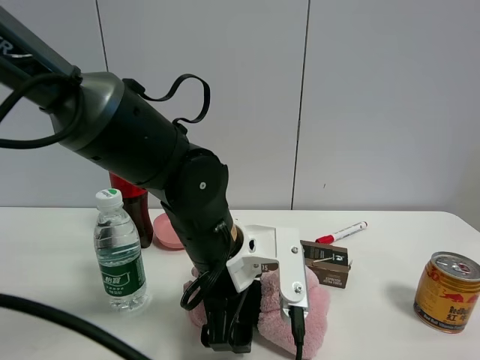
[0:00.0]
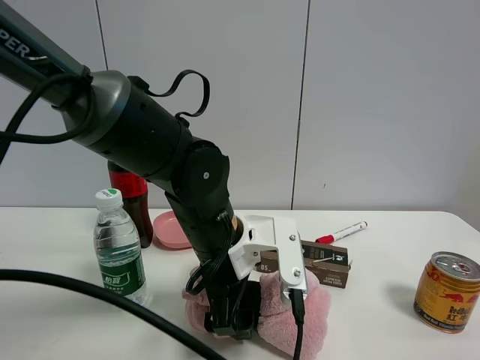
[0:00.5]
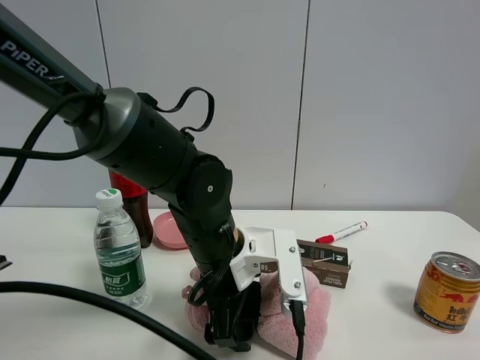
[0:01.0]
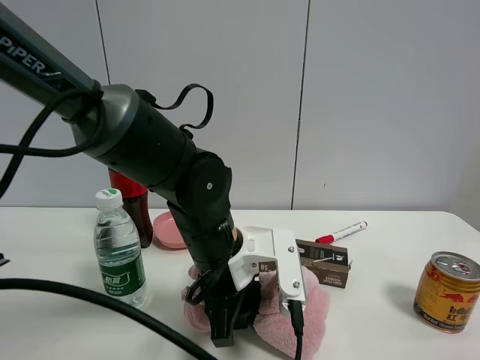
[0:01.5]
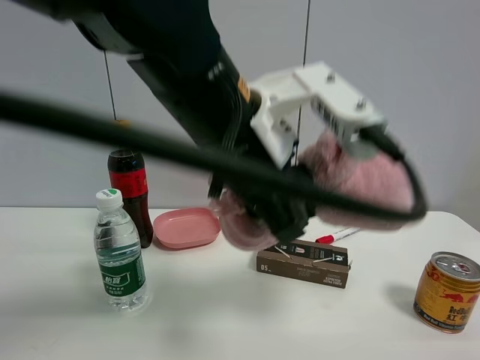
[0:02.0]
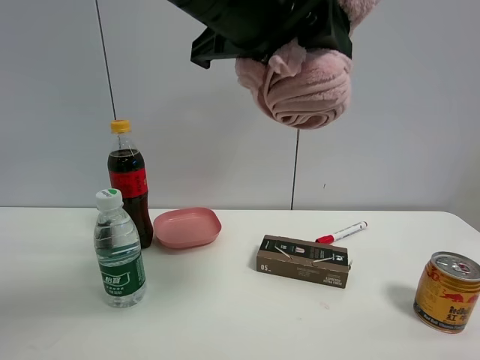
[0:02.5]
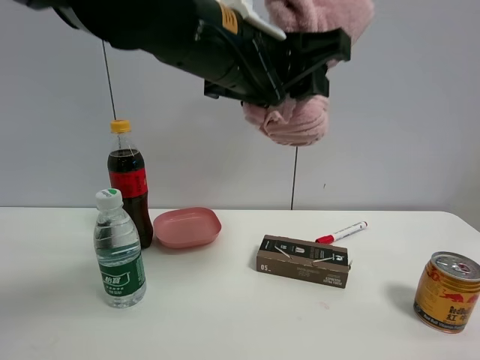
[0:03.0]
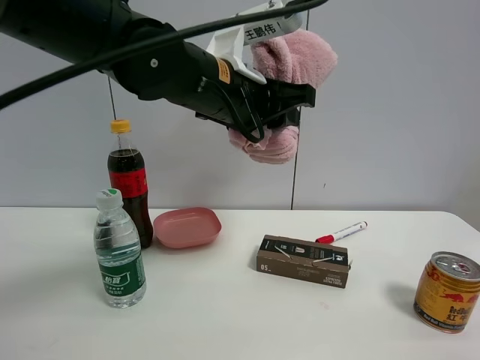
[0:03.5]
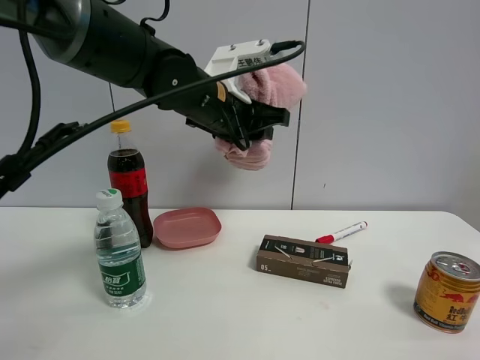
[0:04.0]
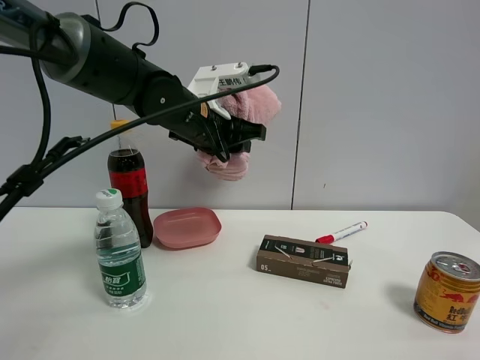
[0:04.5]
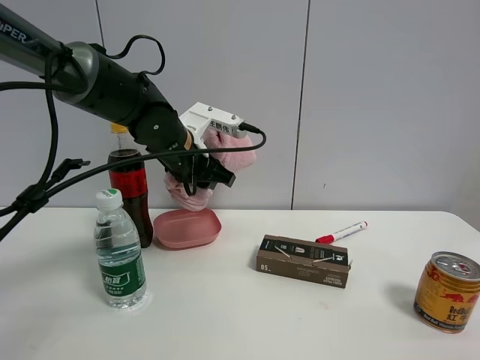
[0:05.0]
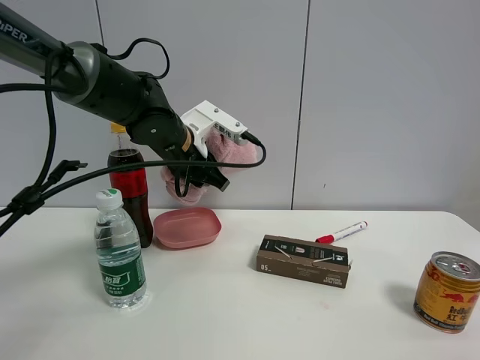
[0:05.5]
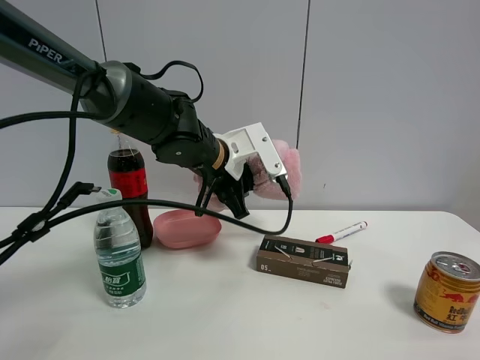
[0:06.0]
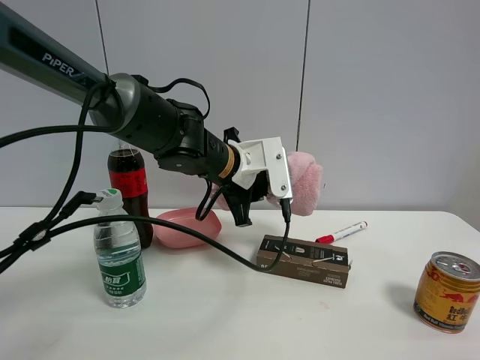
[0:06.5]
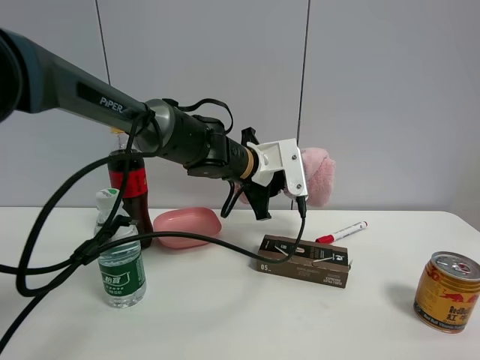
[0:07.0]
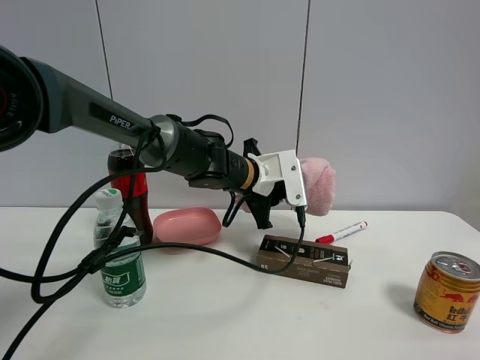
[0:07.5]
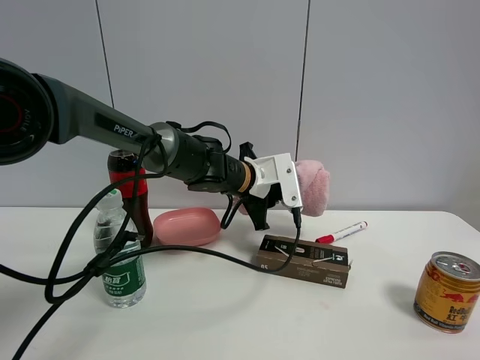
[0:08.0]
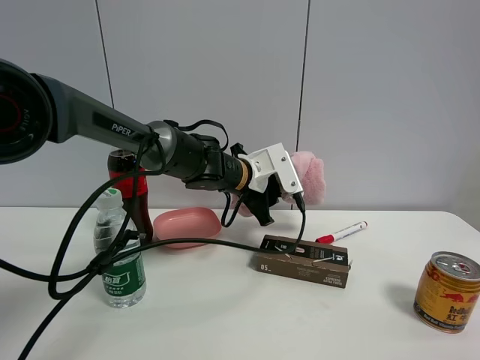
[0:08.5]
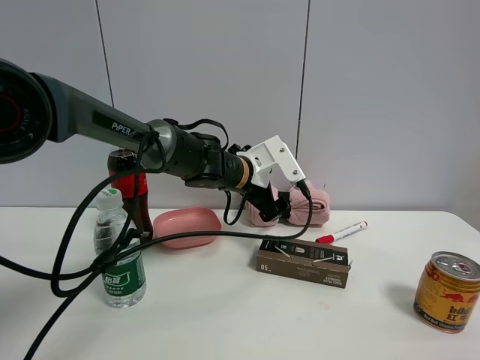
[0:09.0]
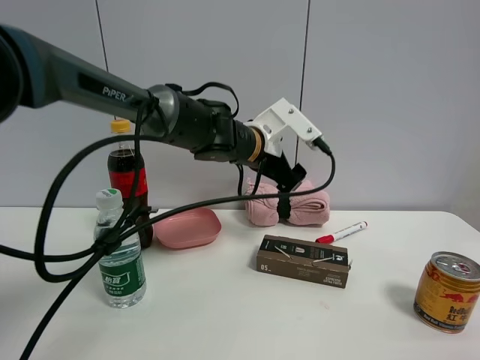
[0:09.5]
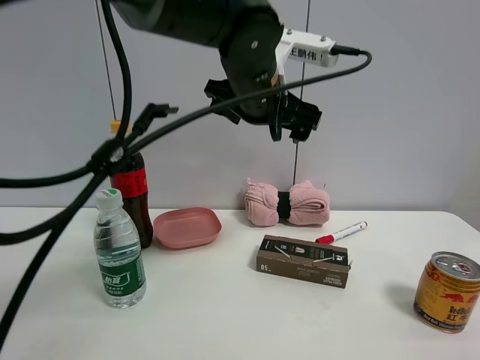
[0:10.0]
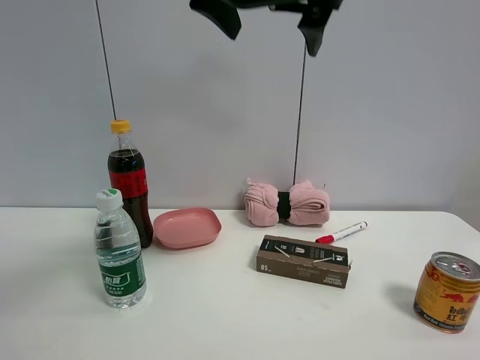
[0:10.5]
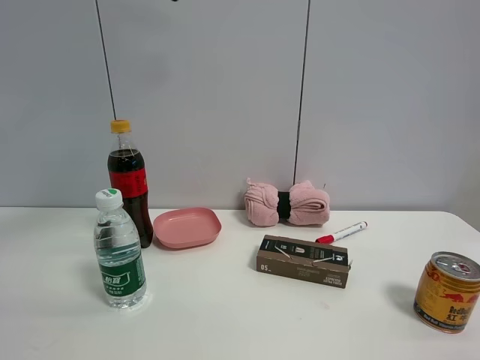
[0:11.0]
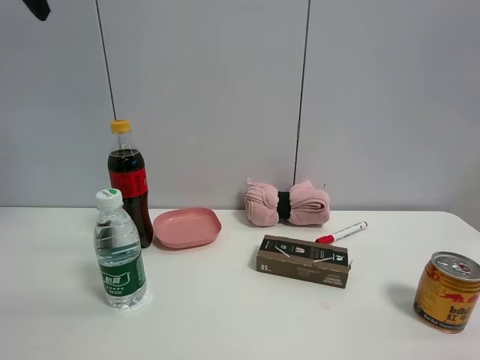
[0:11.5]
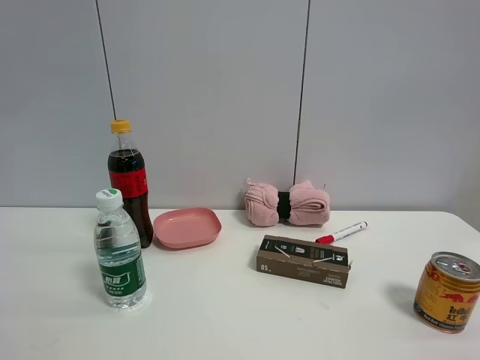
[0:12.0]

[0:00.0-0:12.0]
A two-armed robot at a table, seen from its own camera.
Task of the whole recording: the gripper move the object.
Step, 0:02.0 to 0:08.5: Place the pink towel on the table with the left gripper.
0:00.0 to 0:02.0: The left gripper moves upward, approximately 15 cm, and closes.
0:02.0 to 0:04.0: The left gripper shifts roughly 15 cm forward.
0:04.0 to 0:06.0: The left gripper goes approximately 10 cm downward.
0:06.0 to 0:08.0: The left gripper moves some 10 cm.
0:08.0 to 0:10.0: The left gripper moves upward and backward, about 20 cm, and opens up.
0:10.0 to 0:12.0: The left gripper travels to the left and upward by approximately 40 cm.

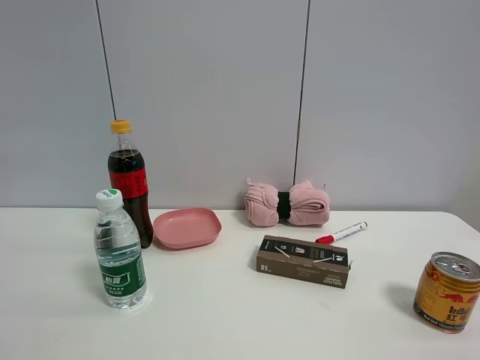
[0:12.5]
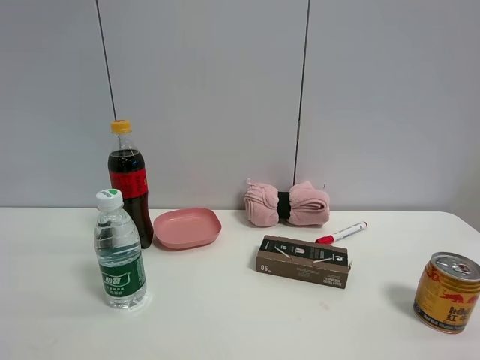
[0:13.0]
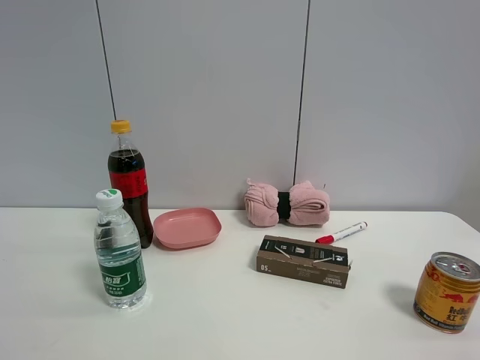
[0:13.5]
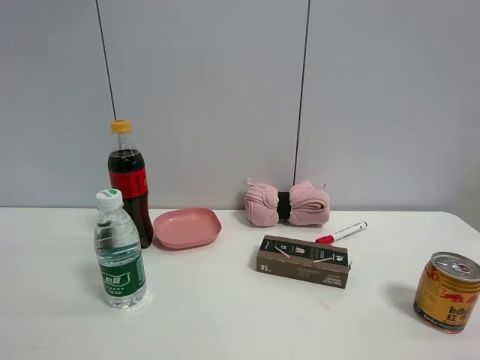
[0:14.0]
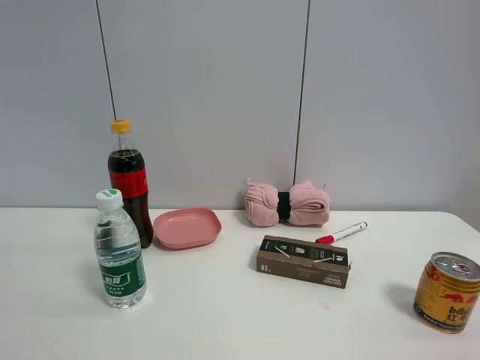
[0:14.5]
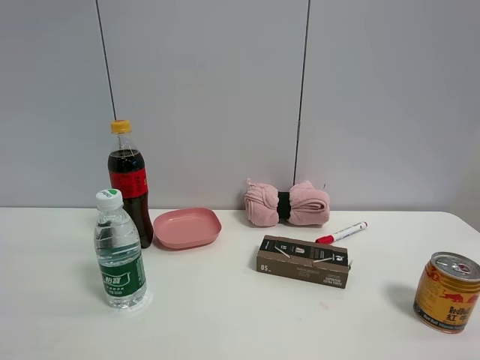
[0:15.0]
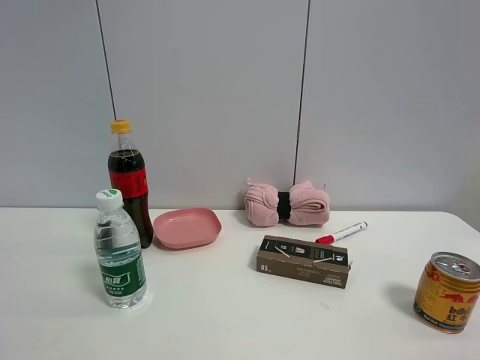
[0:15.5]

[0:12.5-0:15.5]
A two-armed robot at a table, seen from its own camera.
Task of the whole recording: the gripper move the object.
0:14.0 to 0:15.5: Neither gripper changes place.

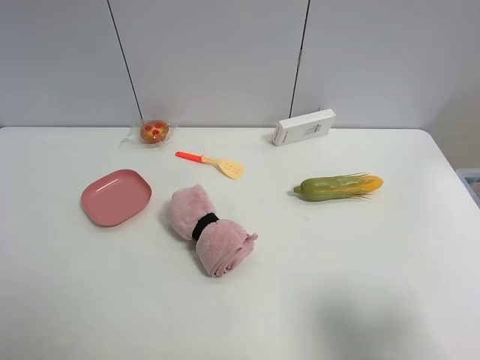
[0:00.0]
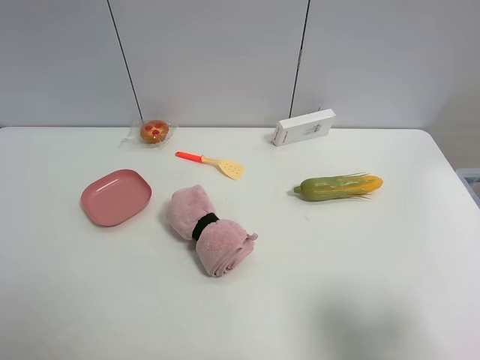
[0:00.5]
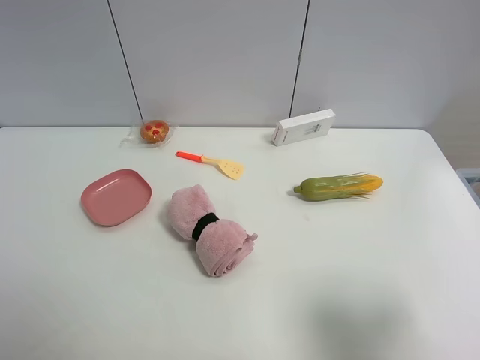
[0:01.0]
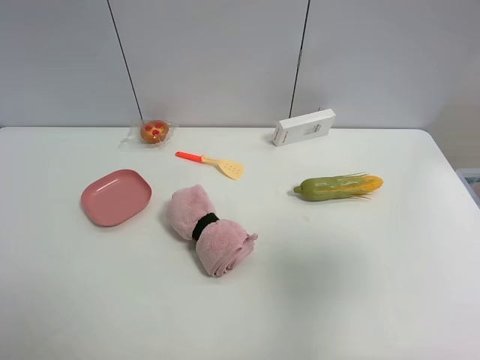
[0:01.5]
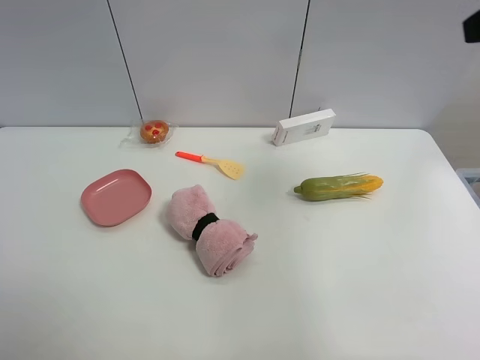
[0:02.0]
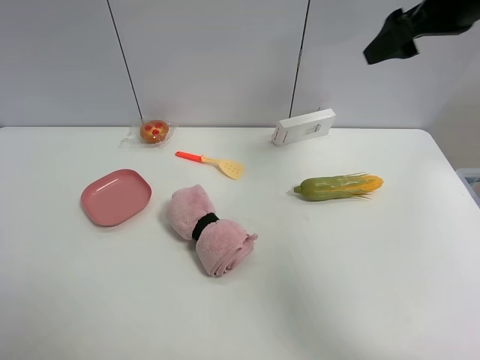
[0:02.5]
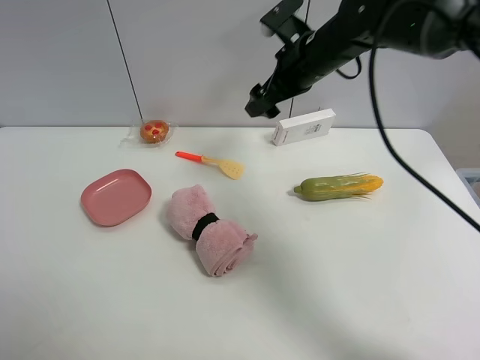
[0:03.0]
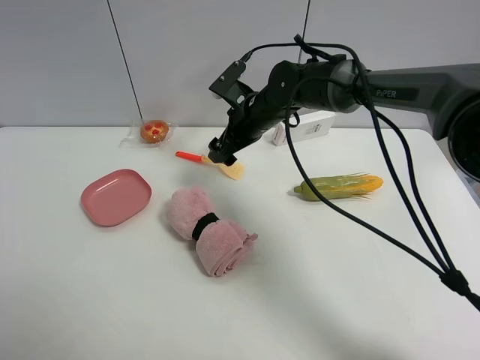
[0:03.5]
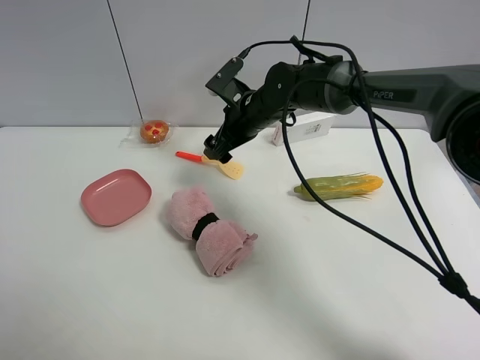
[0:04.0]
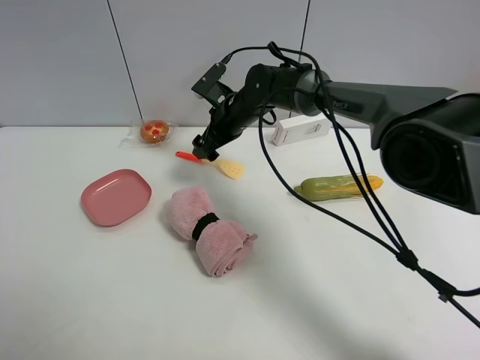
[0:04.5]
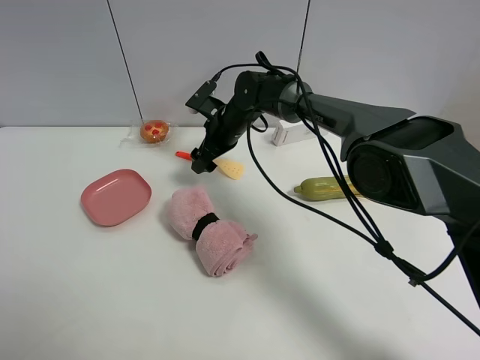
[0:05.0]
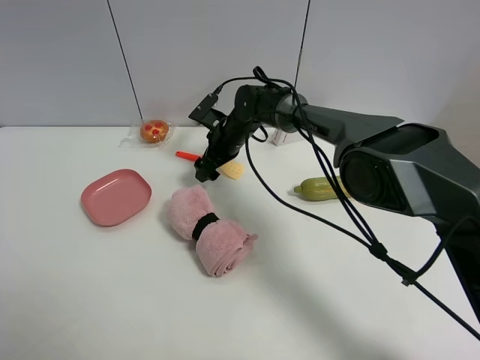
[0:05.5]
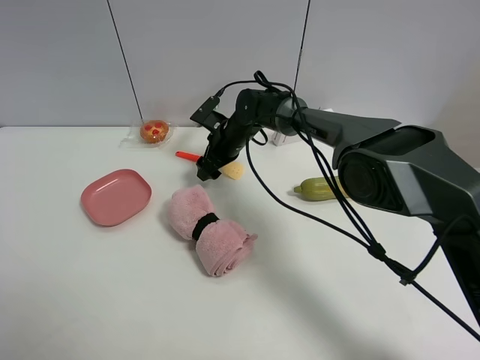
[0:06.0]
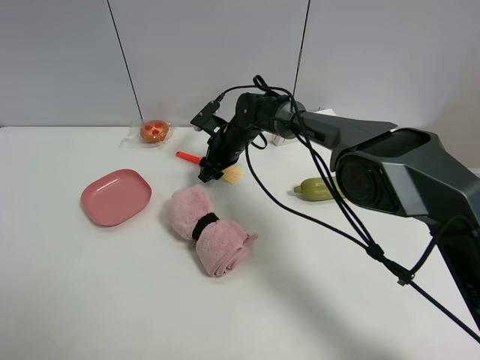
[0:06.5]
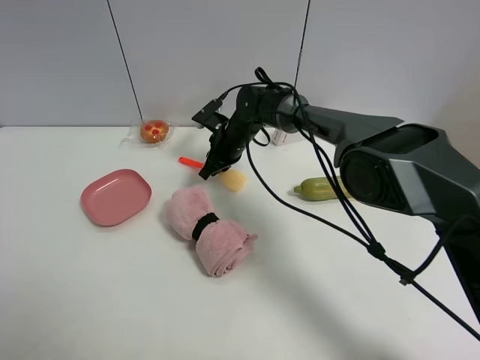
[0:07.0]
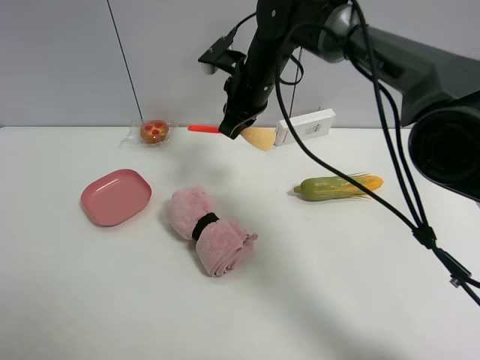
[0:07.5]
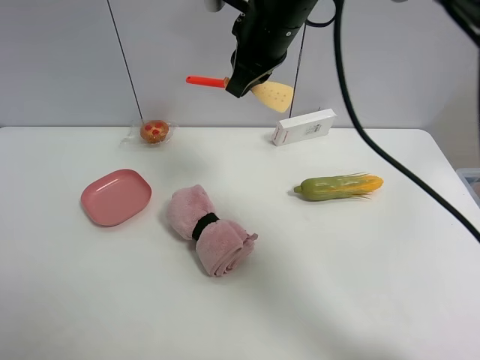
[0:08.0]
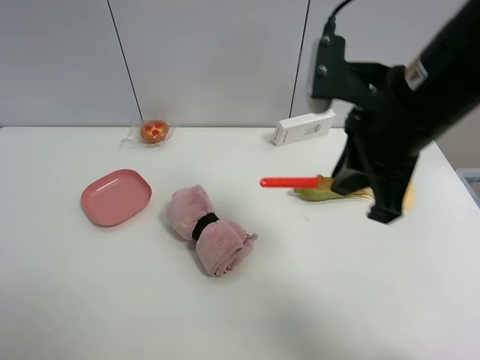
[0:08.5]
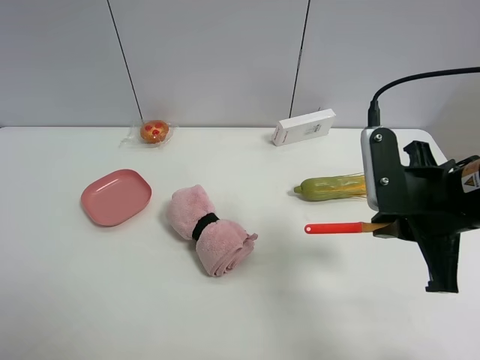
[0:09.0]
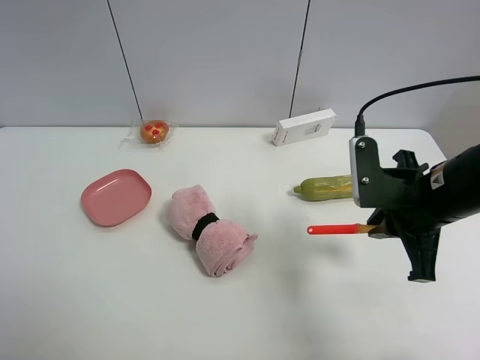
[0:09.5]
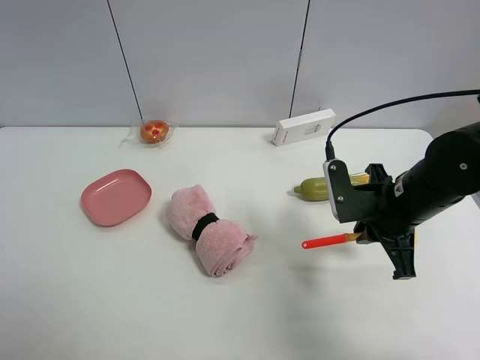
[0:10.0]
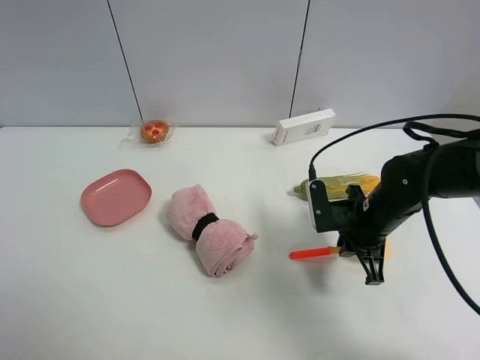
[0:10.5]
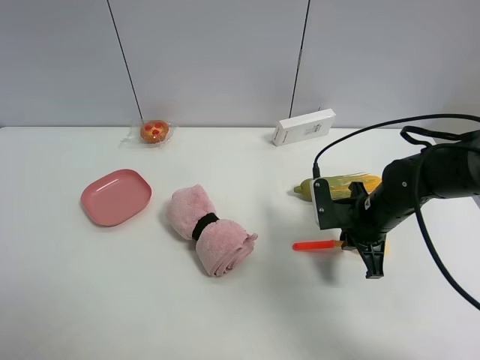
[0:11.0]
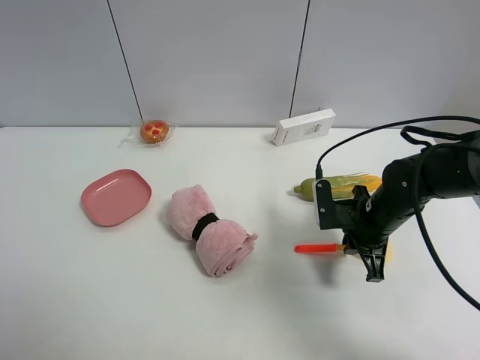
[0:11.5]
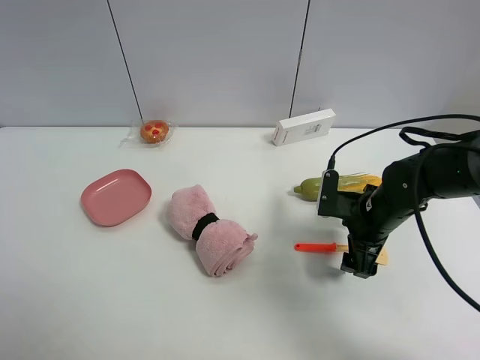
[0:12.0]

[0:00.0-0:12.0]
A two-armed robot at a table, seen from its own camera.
Task of the whole recording: the gripper move the object.
Step, 0:00.0 to 0:06.5: Grasp the cooking shovel with the right gripper.
Step, 0:07.0 to 0:12.0: Place the cooking shovel on the table with the right gripper.
0:00.0 to 0:02.0: The right gripper shifts some 30 cm forward and upward.
0:02.0 to 0:04.0: The right gripper is displaced downward, to the left and forward by roughly 40 cm.
0:04.0 to 0:06.0: The right gripper moves downward and forward, some 10 cm.
0:06.0 to 0:08.0: The right gripper is displaced upward and backward by approximately 25 cm, and closes.
0:08.0 to 0:10.0: The right gripper moves to the right, downward and backward, about 25 cm.
0:10.0 to 0:12.0: The right gripper moves downward, some 5 cm, and opens up.
